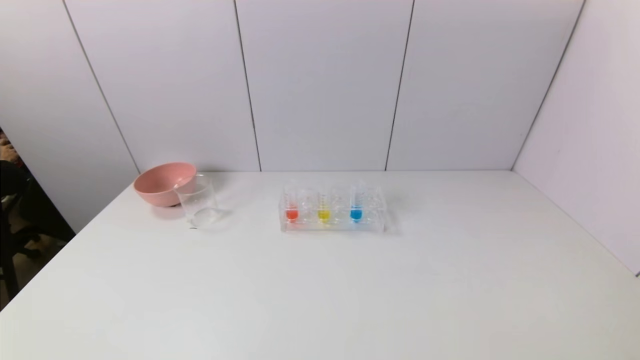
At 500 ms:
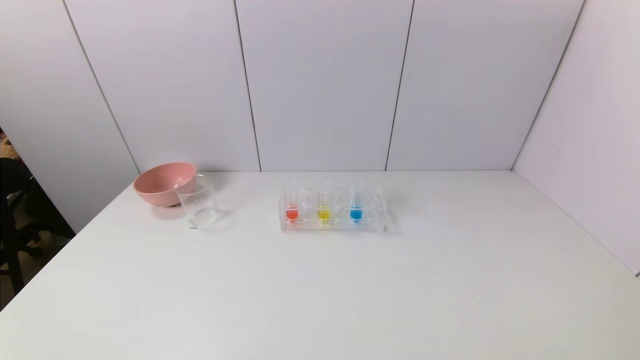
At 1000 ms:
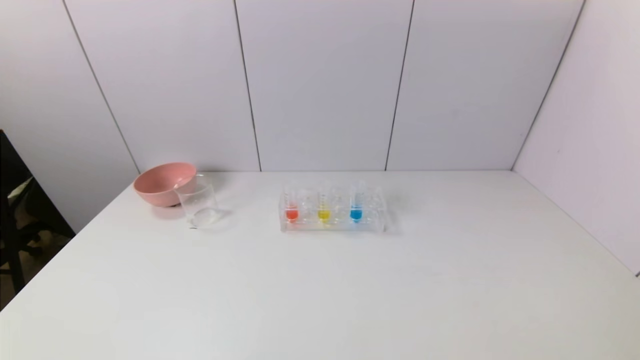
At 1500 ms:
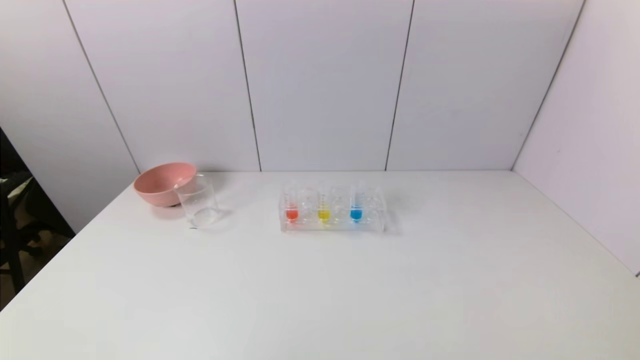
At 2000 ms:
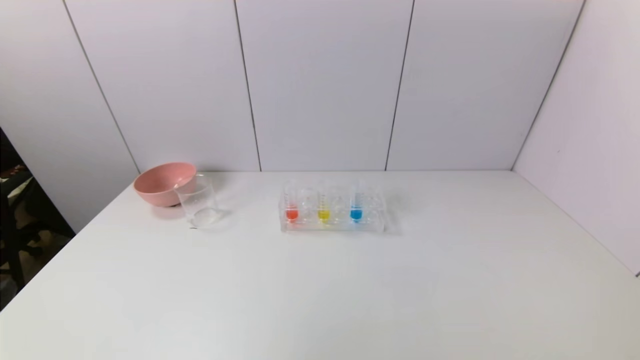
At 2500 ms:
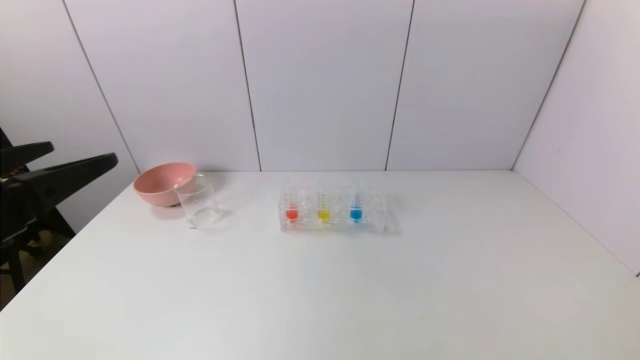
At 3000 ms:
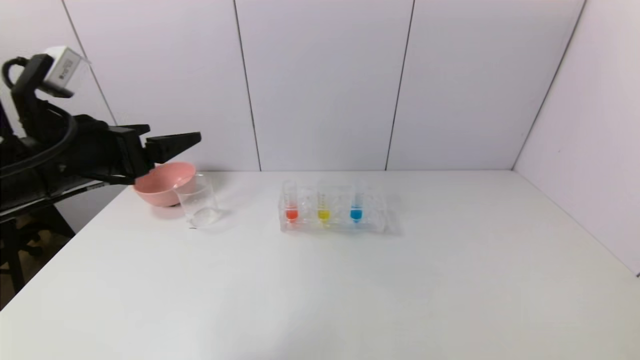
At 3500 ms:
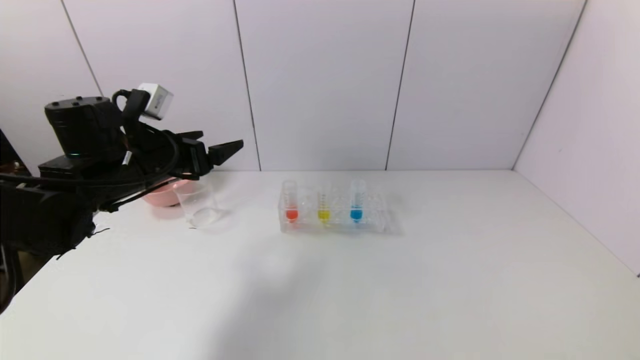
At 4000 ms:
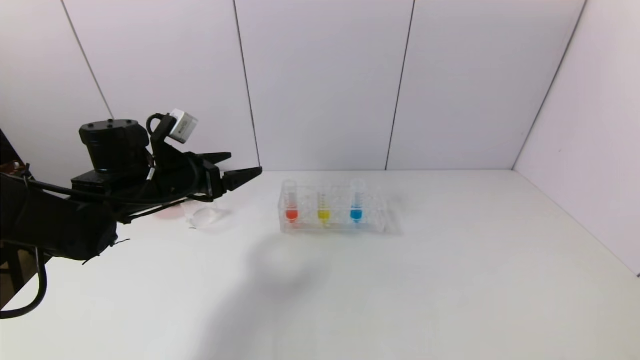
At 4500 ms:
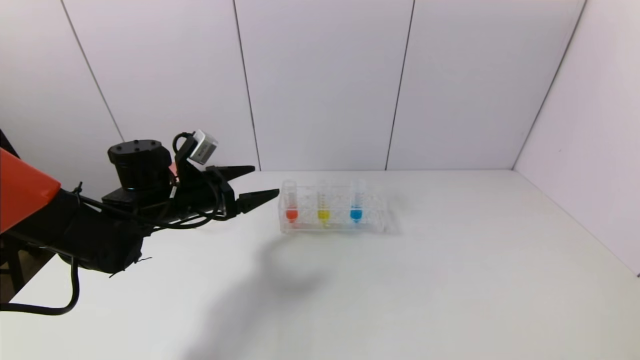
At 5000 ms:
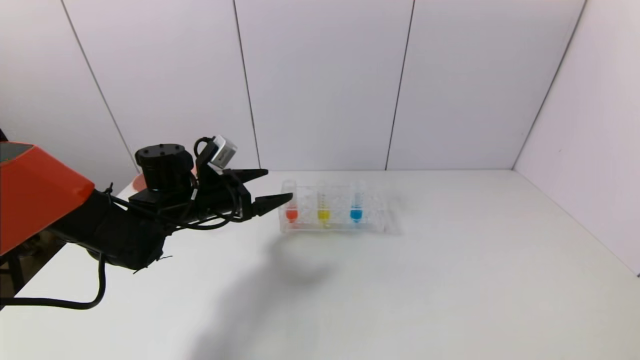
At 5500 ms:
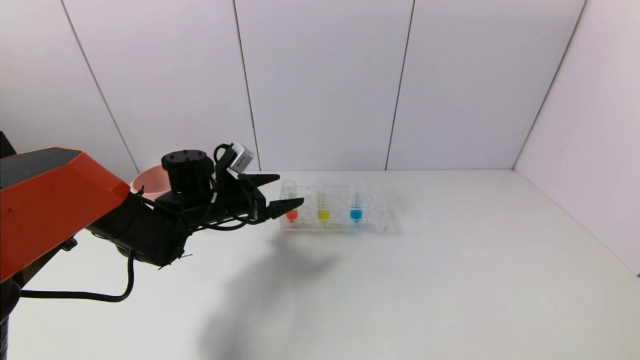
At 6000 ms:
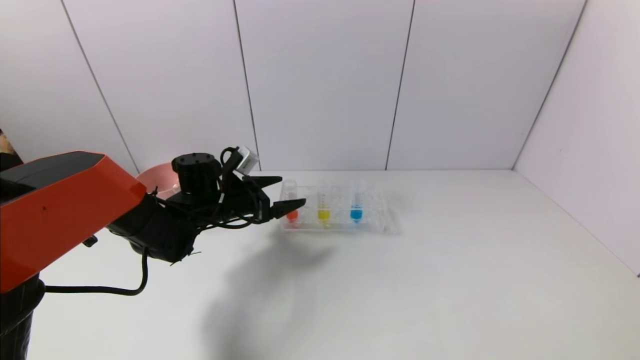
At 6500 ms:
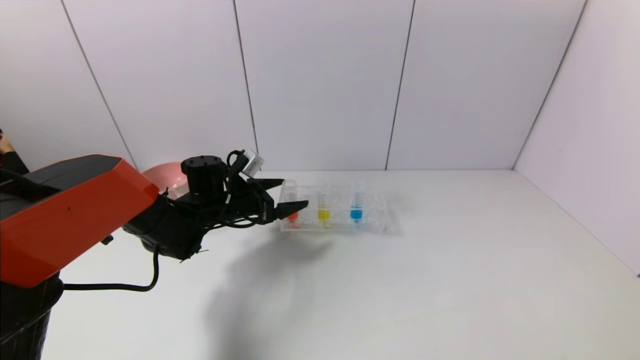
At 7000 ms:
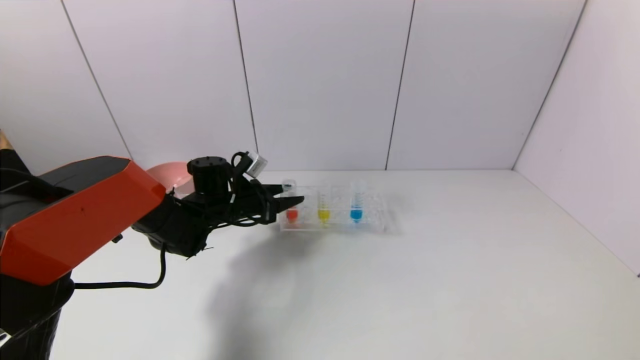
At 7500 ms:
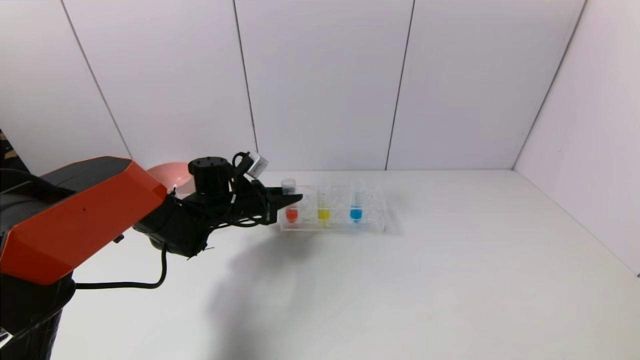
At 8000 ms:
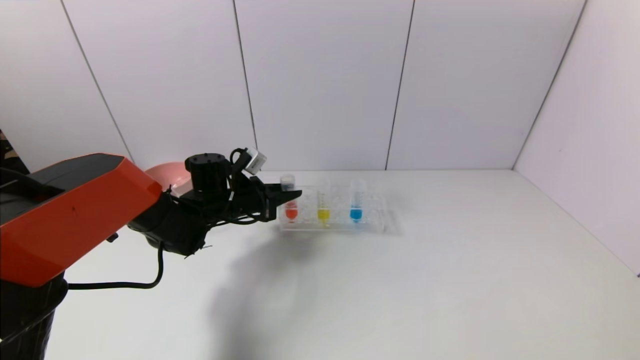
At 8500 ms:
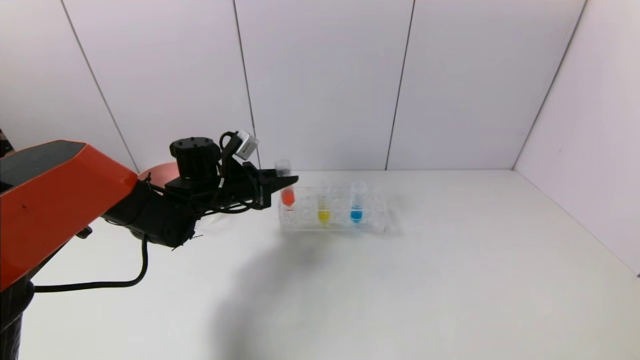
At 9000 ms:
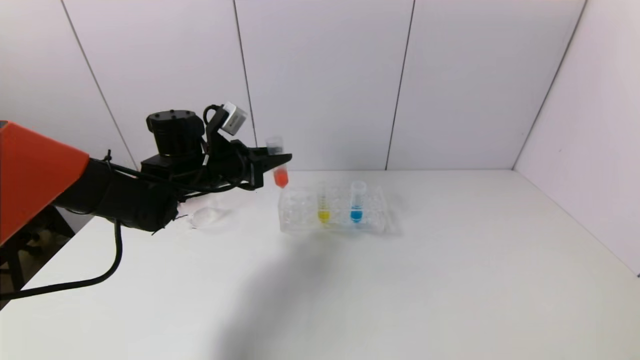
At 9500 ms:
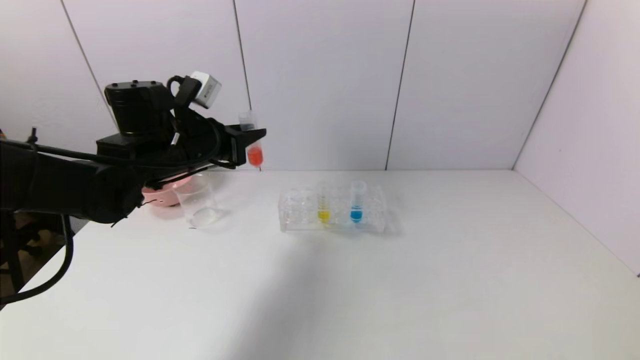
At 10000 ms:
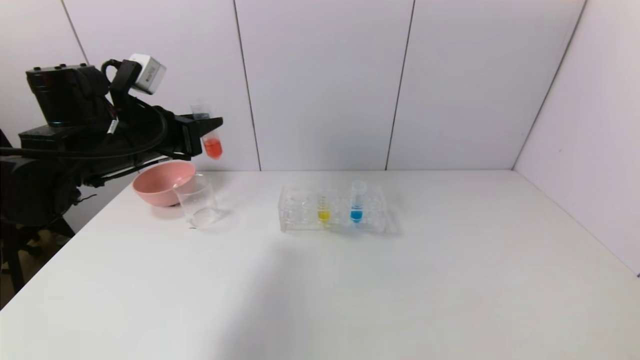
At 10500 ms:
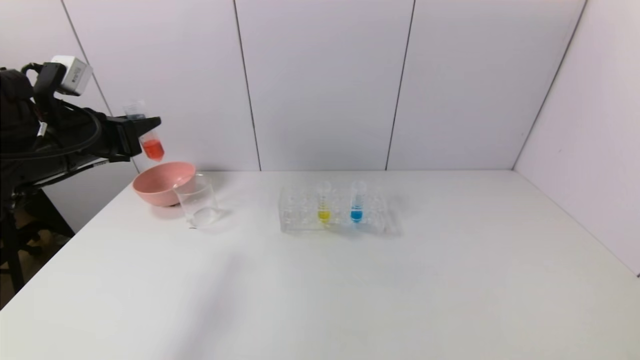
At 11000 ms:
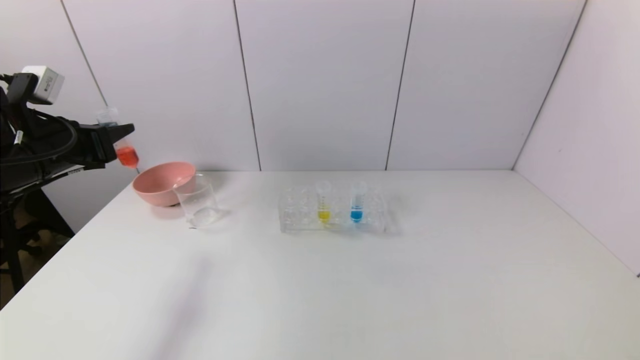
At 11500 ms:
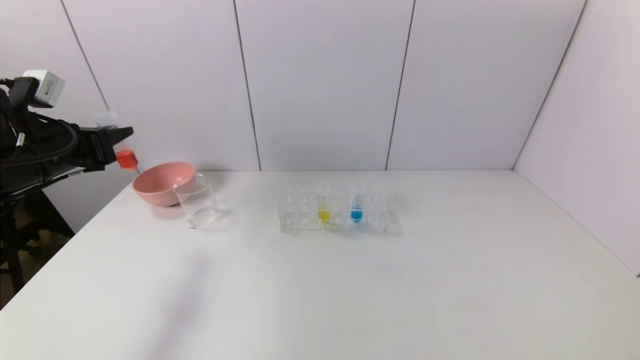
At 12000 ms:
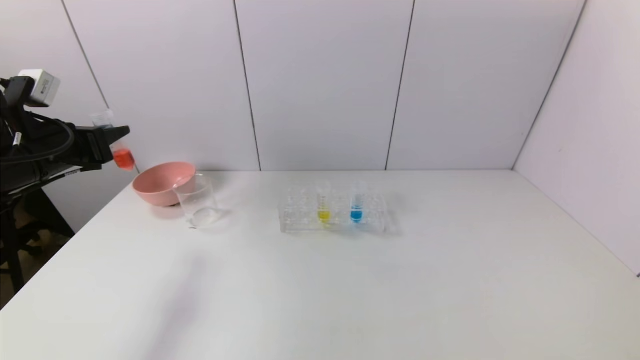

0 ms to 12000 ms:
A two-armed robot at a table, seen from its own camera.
Task of the whole recording: pick up the test tube with red pigment and the test tube with blue pigment by grippers and pour them into the container.
Step, 0 ms to 7500 ms: Grasp the red reagent with the left gripper.
2000 ms to 4000 ms: The left gripper is displaced forward by roughly 30 cm.
4000 ms to 6000 ms: The left gripper shifts approximately 10 cm downward, to the right and forward.
6000 ms to 8000 ms: The left gripper closes.
8000 ms to 10000 ms: The left gripper goes approximately 20 cm upward, backward and to the left.
10000 ms to 12000 ms: The left gripper shifts approximately 10 cm to the left.

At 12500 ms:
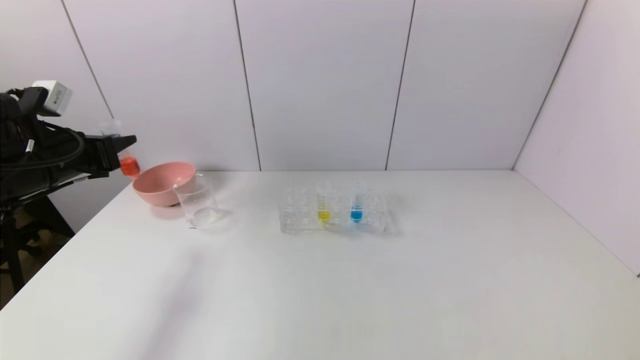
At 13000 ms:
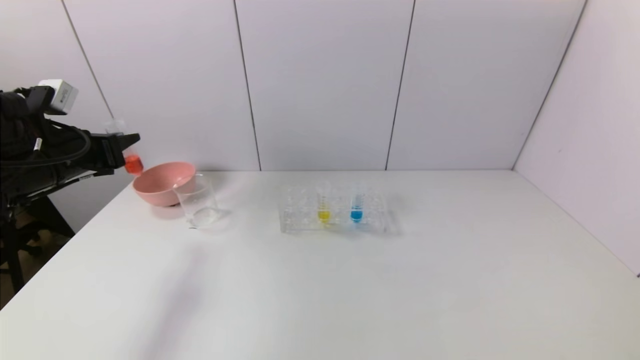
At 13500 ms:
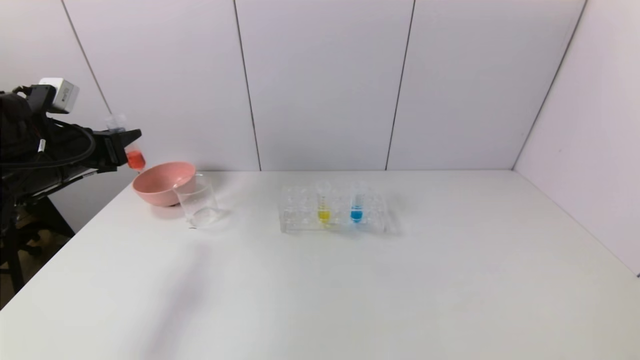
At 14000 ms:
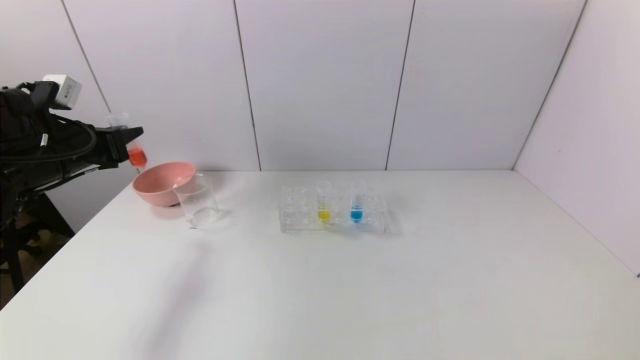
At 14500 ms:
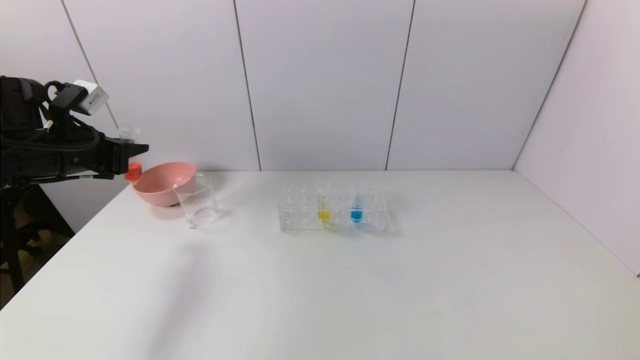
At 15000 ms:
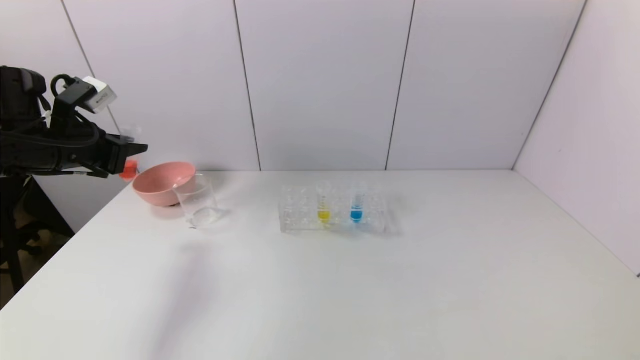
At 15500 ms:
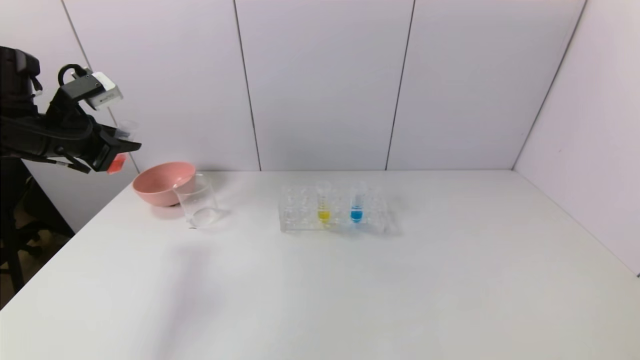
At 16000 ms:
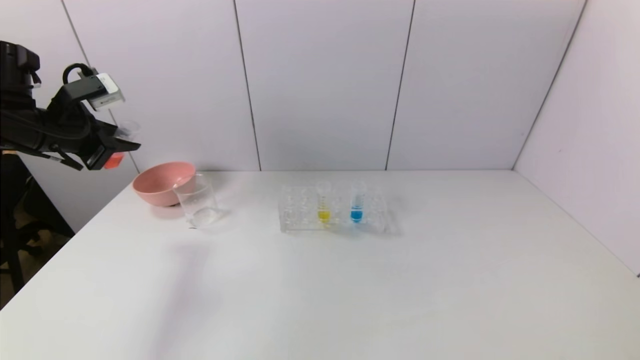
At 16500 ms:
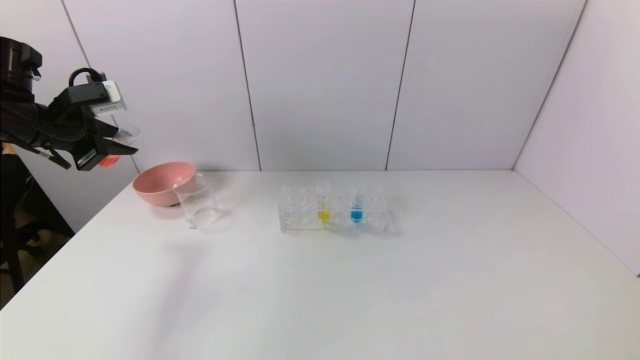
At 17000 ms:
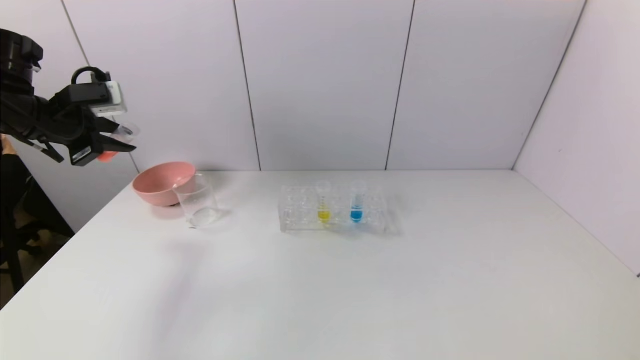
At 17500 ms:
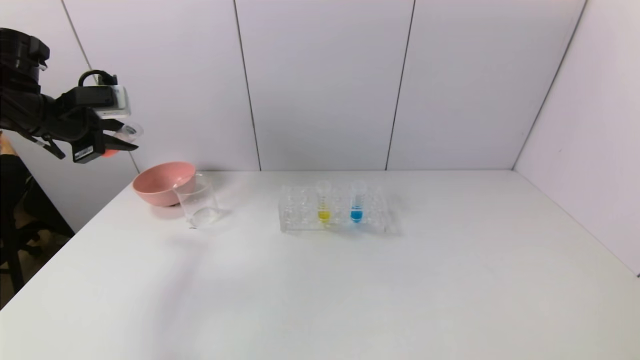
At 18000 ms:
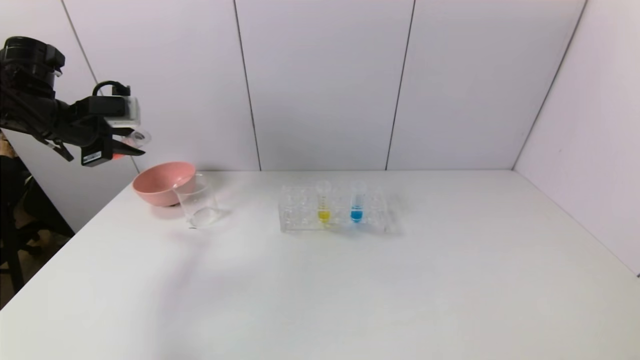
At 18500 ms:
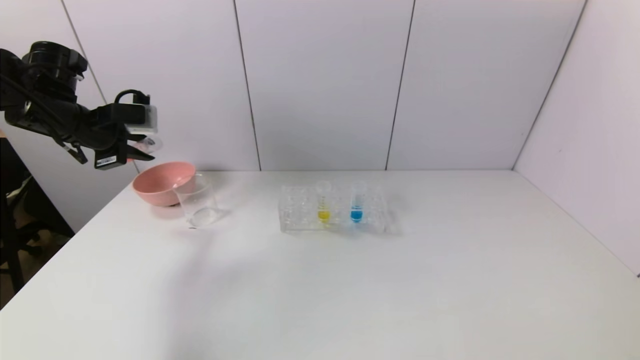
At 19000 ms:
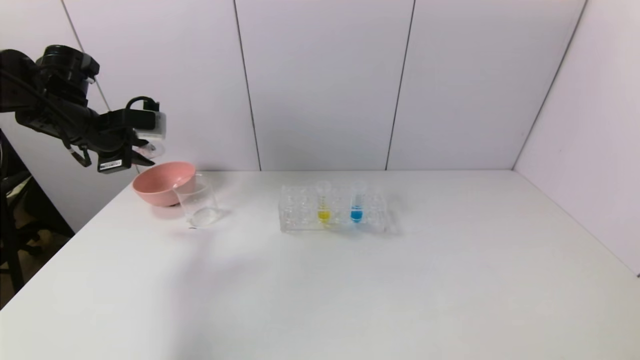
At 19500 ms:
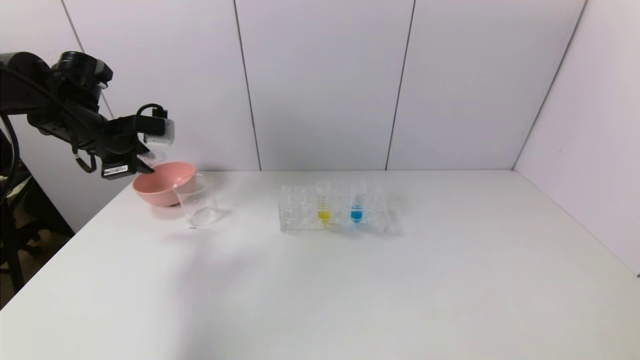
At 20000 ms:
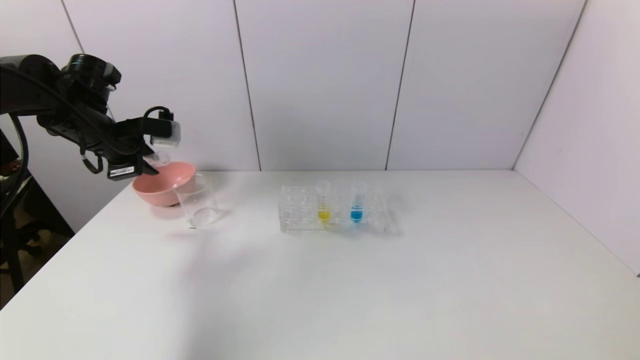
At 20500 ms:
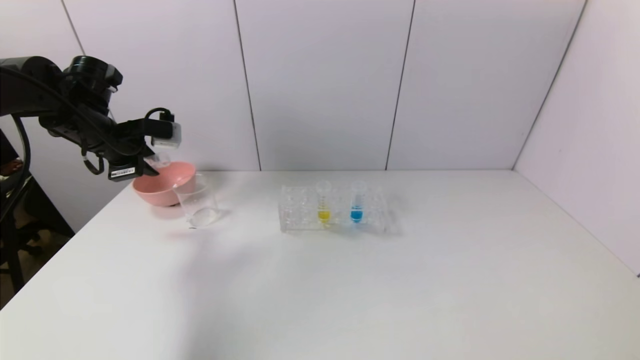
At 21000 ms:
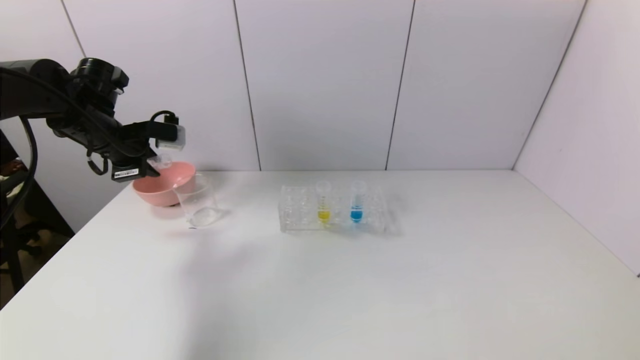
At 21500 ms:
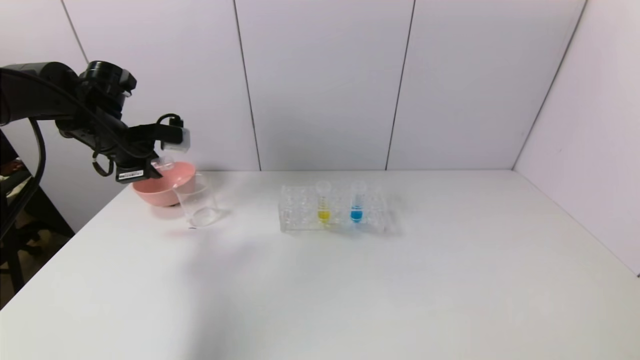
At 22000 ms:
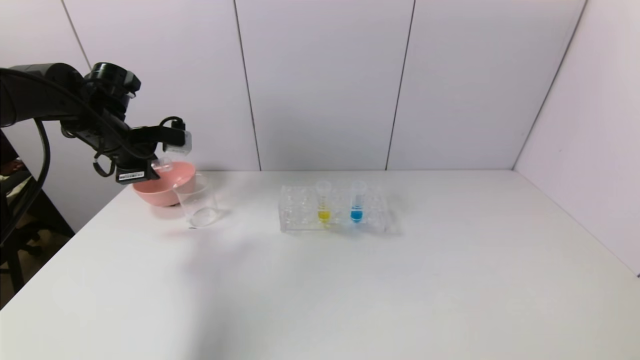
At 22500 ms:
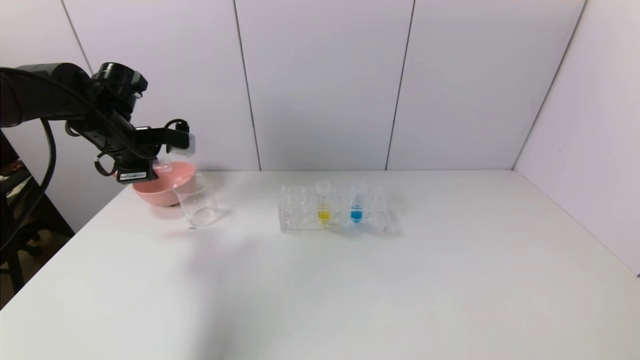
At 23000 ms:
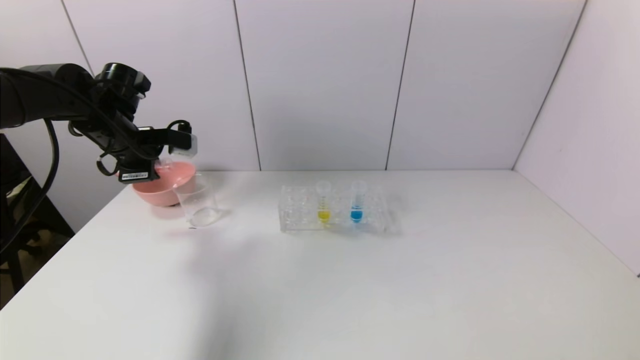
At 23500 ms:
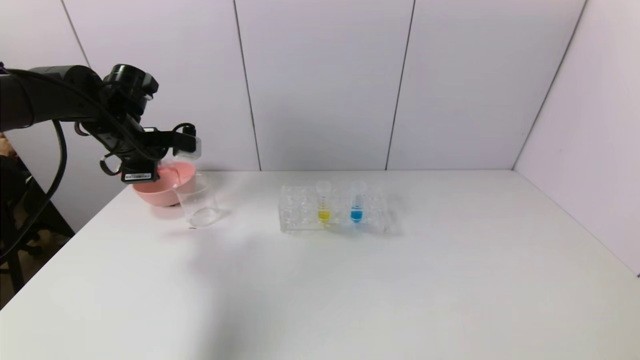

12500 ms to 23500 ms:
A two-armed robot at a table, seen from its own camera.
Task of the whole recording: pick up the test tube with red pigment and the test tube with blue pigment by grippers and pour them into the container.
12500 ms to 14500 ms: The grippers move only a little.
18000 ms to 20000 ms: The left gripper moves about 5 cm.
20000 ms to 23500 ms: The grippers move only a little.
